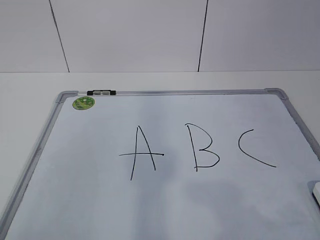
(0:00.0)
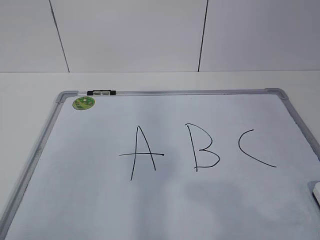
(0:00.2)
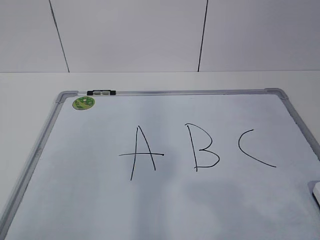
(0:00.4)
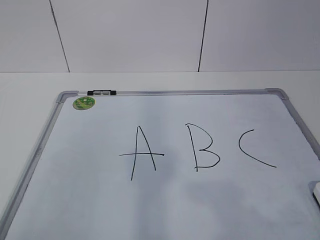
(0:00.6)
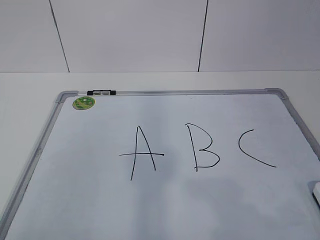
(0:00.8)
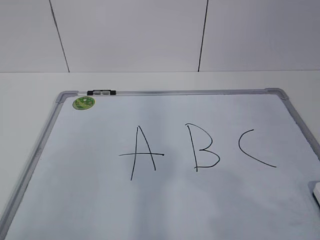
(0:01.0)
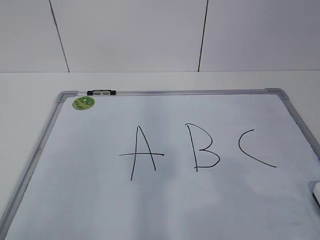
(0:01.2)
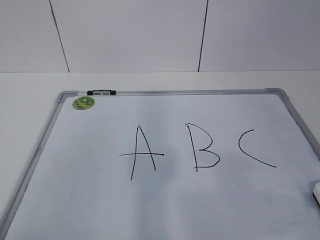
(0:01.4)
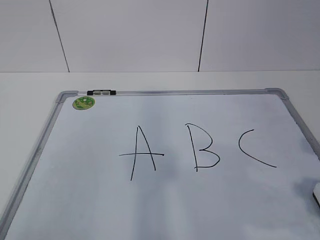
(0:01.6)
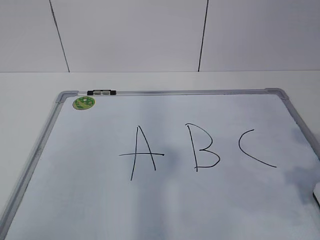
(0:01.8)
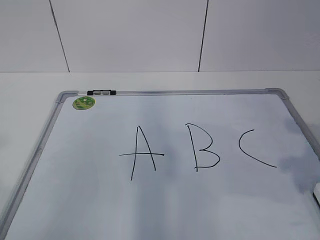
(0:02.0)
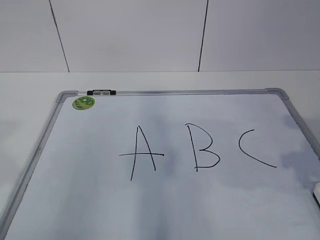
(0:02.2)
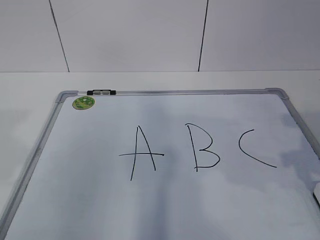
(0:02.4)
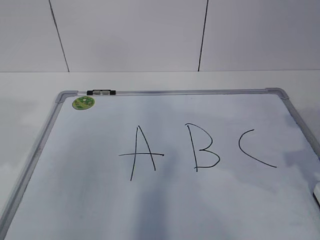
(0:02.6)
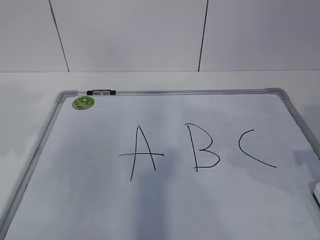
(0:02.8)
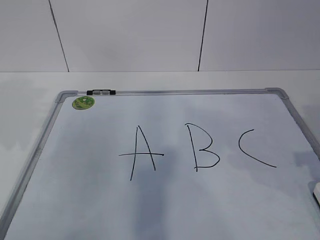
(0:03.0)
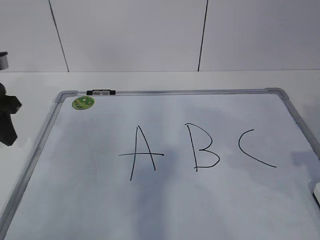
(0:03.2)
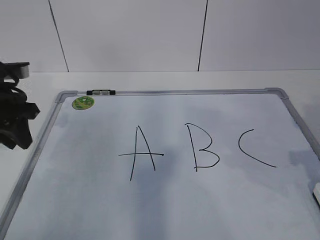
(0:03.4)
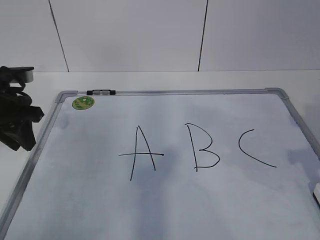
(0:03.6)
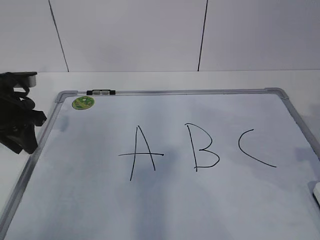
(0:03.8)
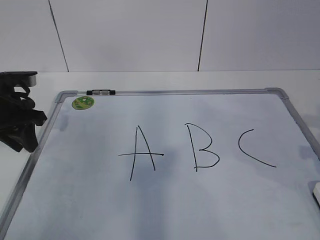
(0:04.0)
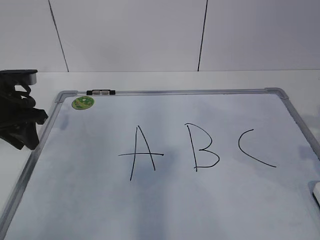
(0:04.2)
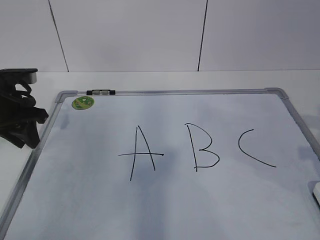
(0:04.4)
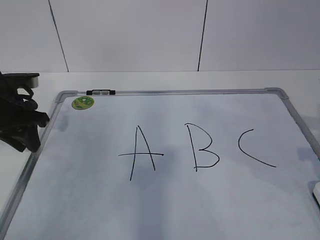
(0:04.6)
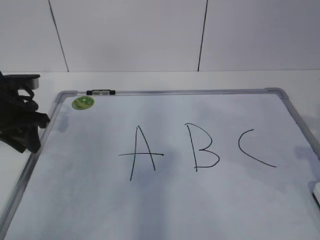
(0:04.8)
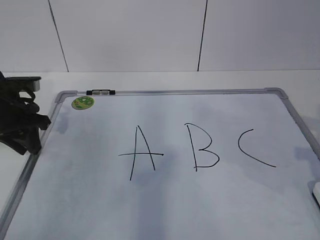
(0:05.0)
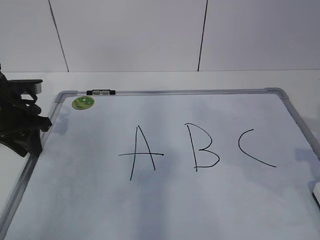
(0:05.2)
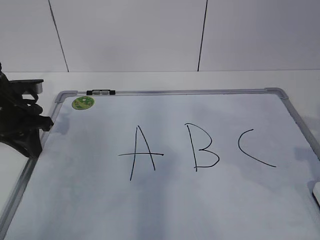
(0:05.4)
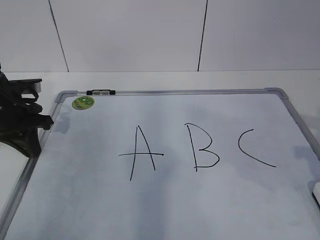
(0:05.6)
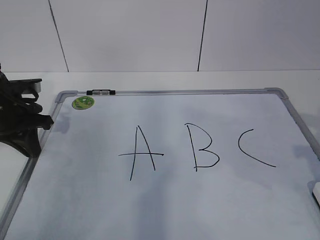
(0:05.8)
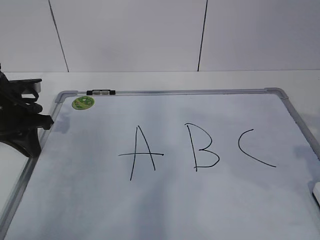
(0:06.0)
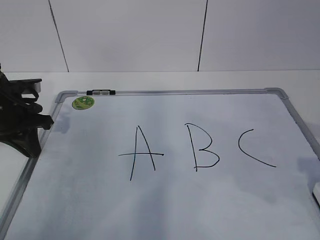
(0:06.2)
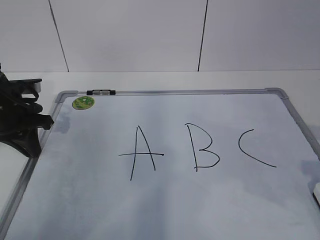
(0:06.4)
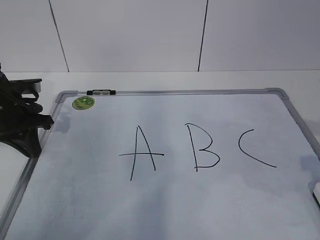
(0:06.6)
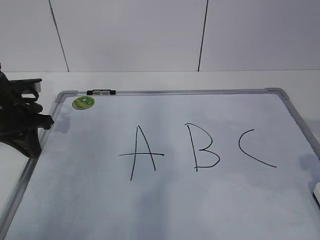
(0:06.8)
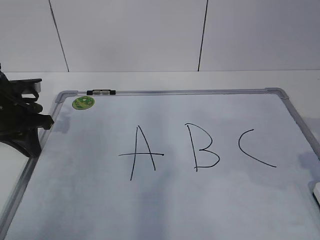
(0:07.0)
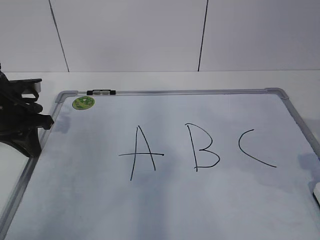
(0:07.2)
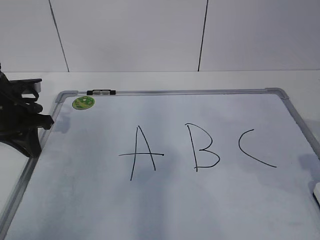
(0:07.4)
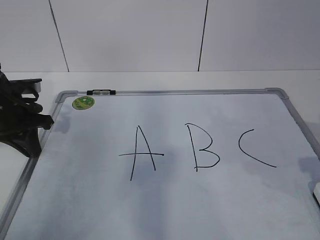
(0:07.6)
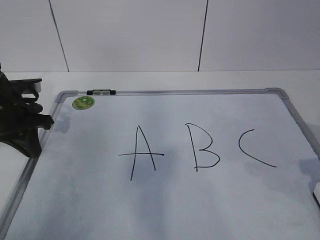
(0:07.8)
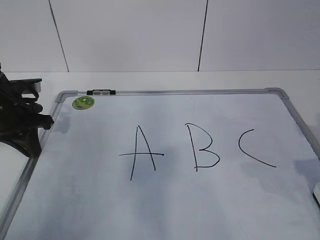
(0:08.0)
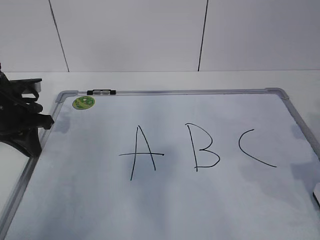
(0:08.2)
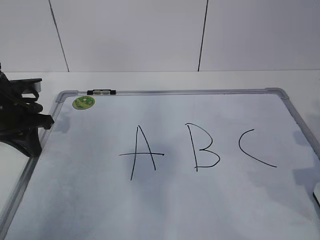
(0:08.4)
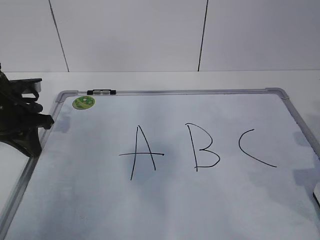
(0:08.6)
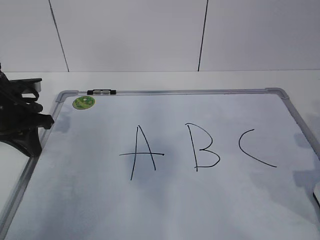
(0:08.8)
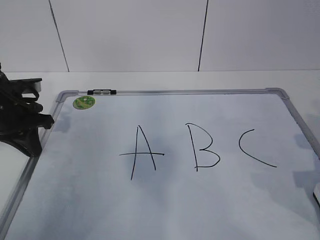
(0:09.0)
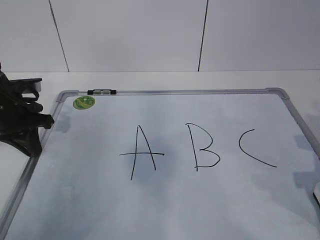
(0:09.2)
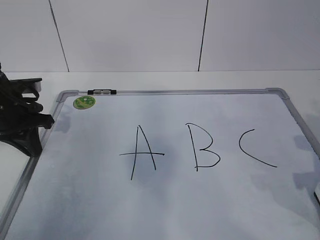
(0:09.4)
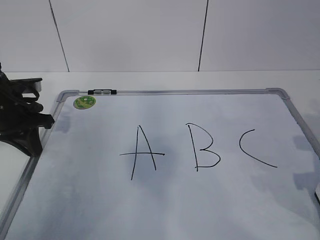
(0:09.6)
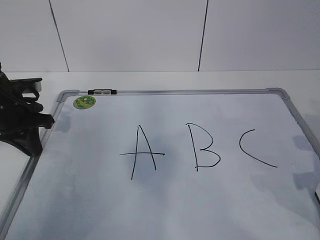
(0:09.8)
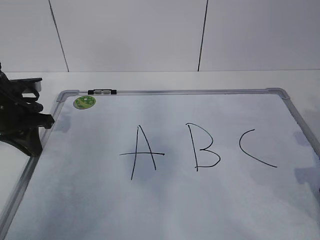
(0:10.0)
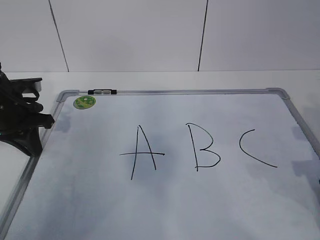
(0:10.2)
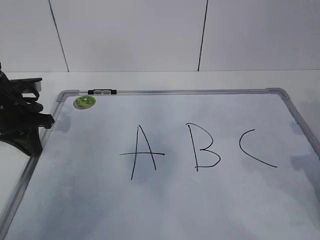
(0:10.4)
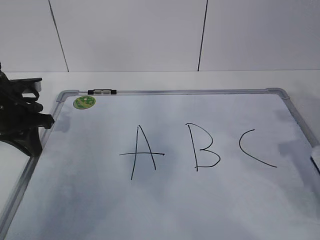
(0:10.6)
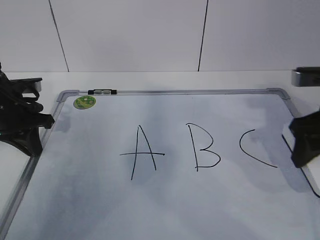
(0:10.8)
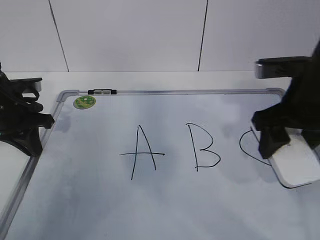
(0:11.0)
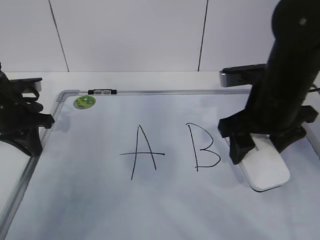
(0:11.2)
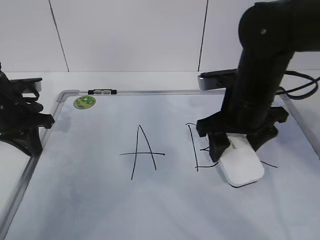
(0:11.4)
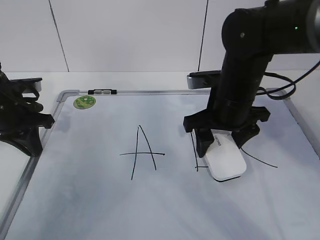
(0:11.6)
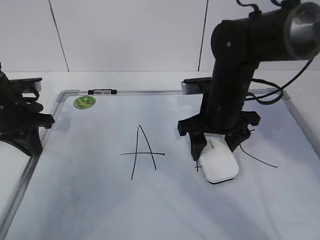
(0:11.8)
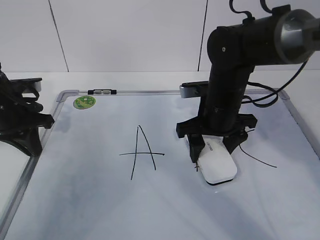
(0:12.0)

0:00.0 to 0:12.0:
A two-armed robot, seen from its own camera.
Task of the whole recording: pick up the eraser on the blackboard and erase the letter "B".
Step, 0:00.0 to 0:04.4: Hold the drawing board steady with your left hand.
0:01.6 to 0:03.0: The left gripper is displaced forward by about 30 cm; the right gripper shifts some 10 cm forward.
0:03.0 to 0:04.4: The left gripper is displaced downward and forward by some 10 cm.
0:04.4 to 0:06.0: The left gripper closes.
0:10.4 to 0:12.0: The right gripper heads to the left and forward, covering roughly 25 cm.

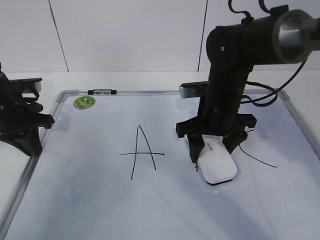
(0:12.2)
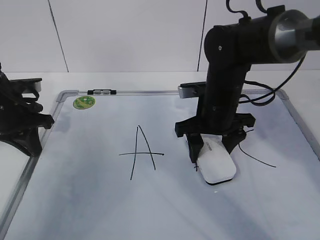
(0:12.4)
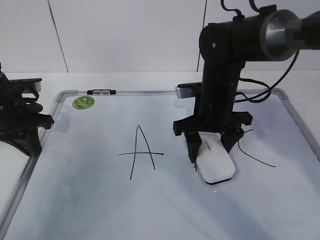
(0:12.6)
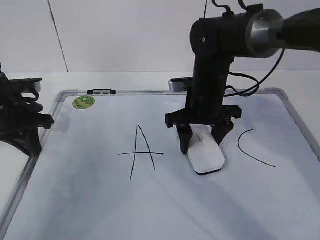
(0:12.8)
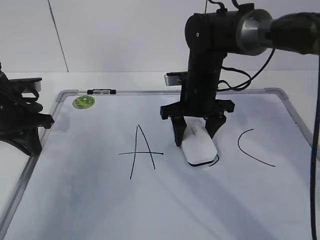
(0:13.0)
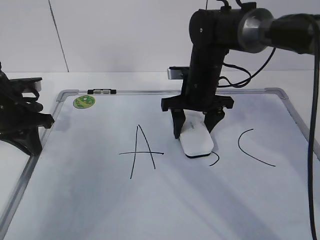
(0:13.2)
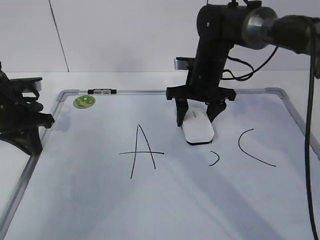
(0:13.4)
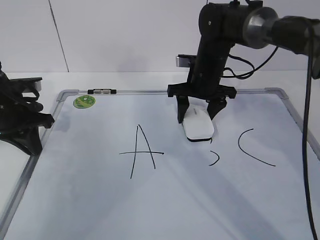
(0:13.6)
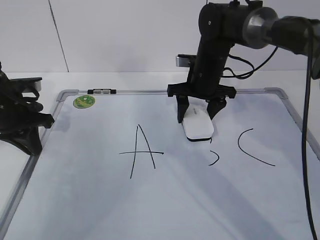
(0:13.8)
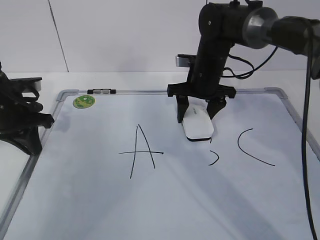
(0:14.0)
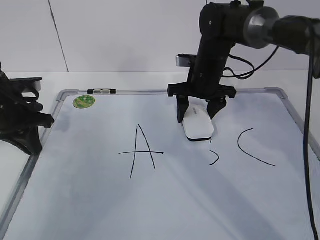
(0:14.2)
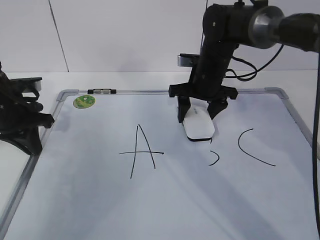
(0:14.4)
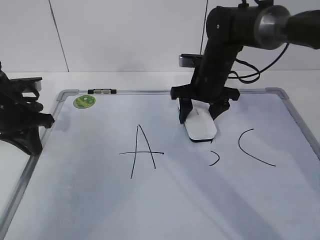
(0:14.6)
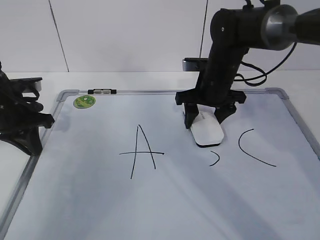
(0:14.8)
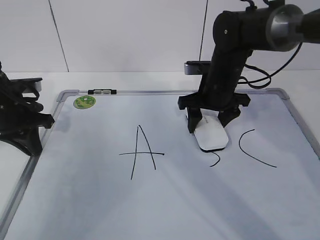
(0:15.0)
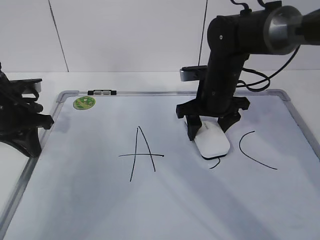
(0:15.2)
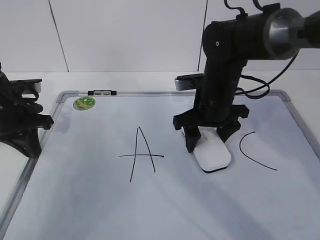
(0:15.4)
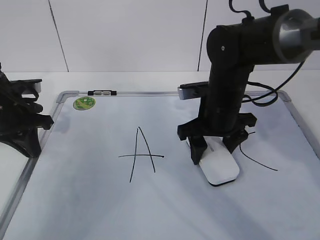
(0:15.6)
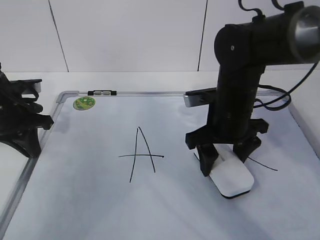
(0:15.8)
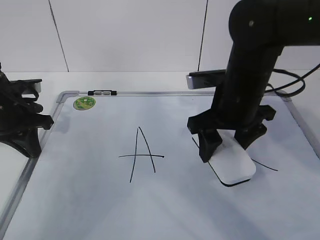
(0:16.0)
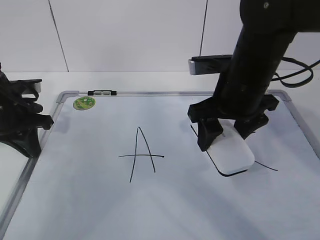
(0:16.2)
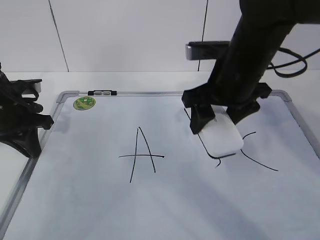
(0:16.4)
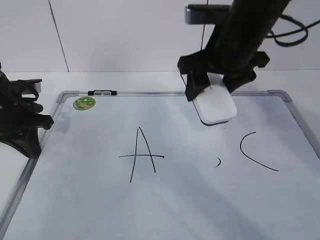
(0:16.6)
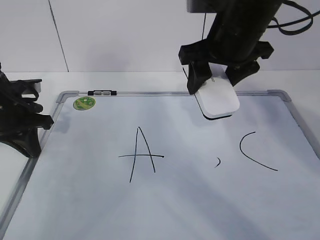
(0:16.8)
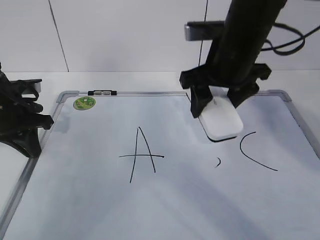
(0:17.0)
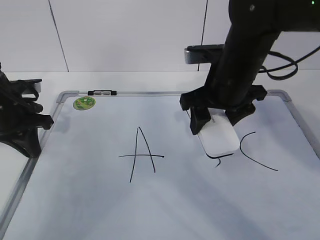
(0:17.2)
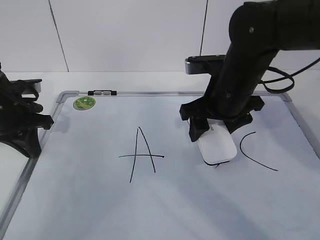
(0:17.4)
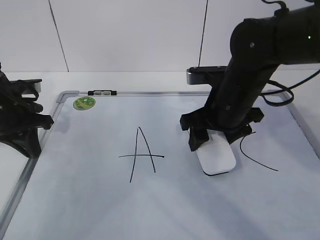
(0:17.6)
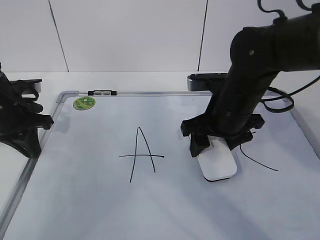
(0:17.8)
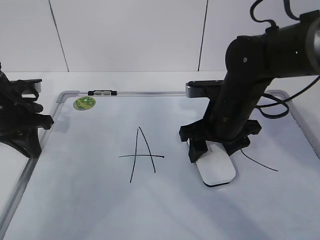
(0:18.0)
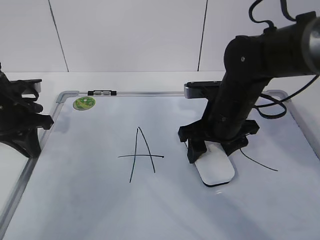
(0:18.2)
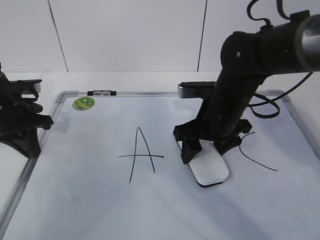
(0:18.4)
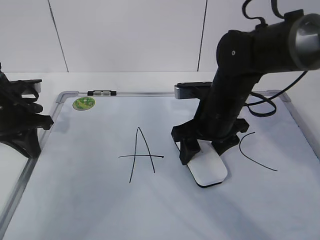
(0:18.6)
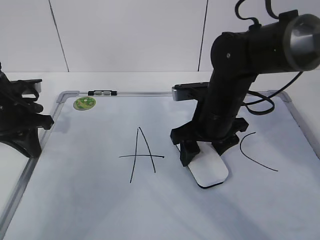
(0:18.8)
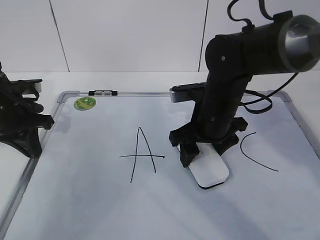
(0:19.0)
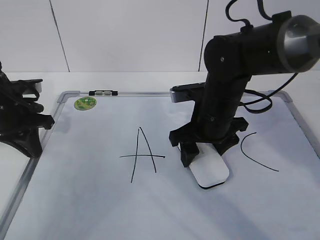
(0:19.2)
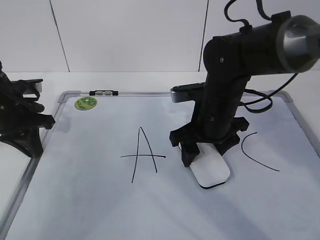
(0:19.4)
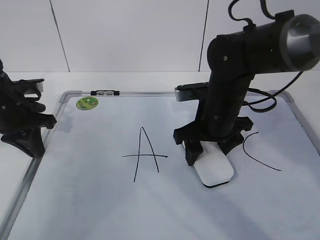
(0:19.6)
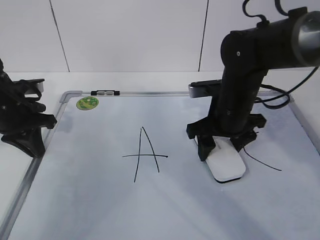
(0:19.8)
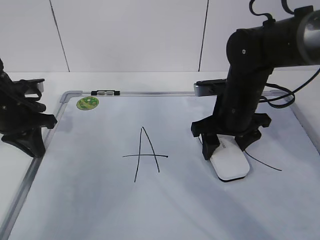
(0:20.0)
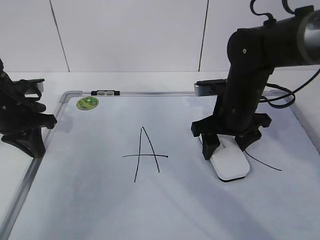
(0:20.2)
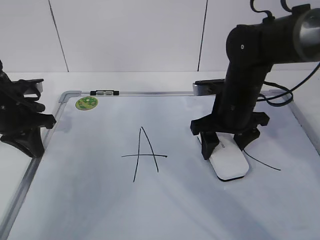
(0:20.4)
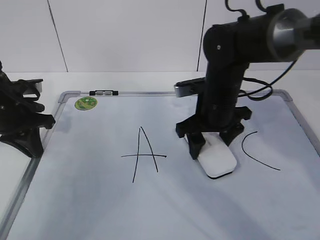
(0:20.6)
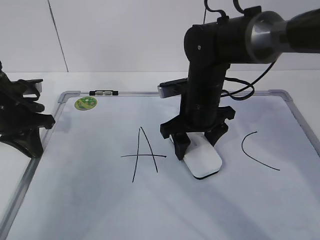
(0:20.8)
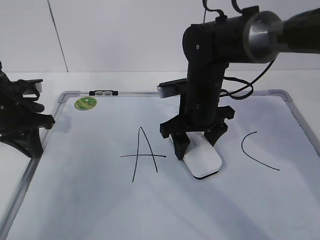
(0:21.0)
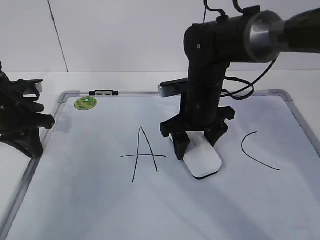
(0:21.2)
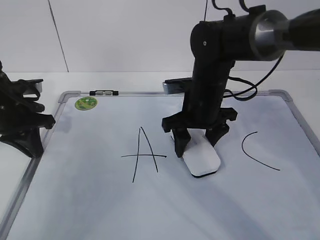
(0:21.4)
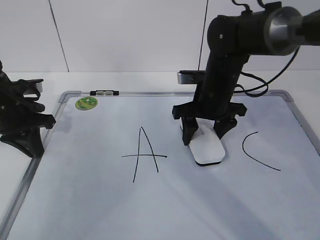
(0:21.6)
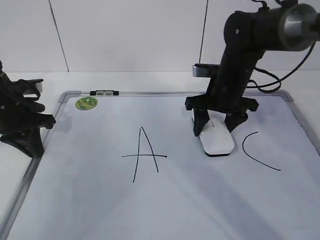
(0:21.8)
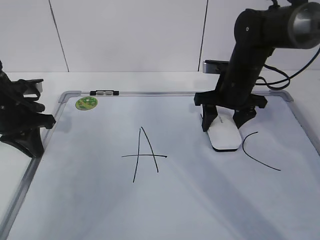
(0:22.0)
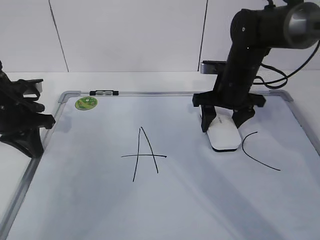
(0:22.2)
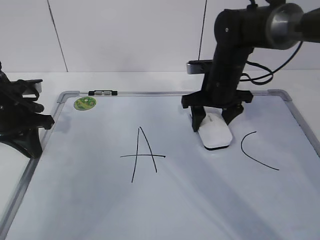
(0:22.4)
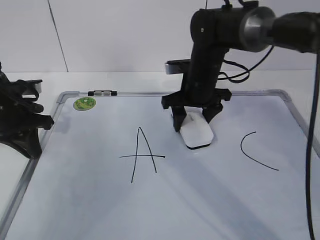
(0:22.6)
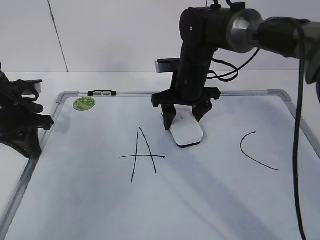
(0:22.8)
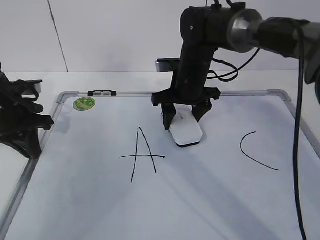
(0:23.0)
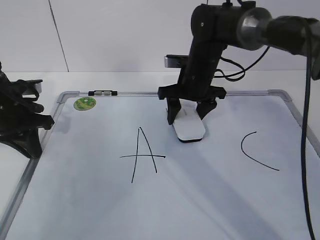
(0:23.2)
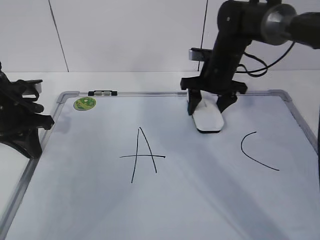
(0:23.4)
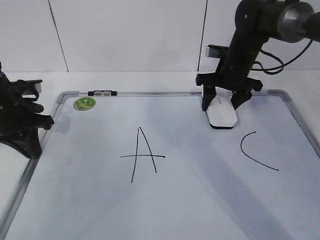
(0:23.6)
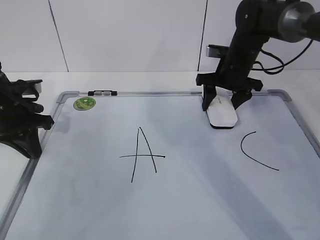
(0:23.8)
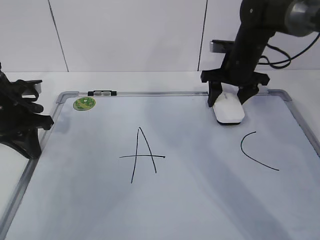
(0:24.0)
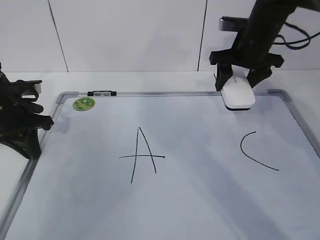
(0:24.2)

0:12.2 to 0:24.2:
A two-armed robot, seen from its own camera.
Task of the whole recording: pick up the eraser on the blackboard and erase the letter "B".
Step, 0:12.2 to 0:19.8: Erase the letter B with your right hand.
Step, 0:20.0 to 0:24.0: Put down the eraser with your right hand.
0:12.2 to 0:13.8: The right gripper shifts some 10 cm forward.
0:13.8 to 0:15.2: The right gripper heads backward, covering some 5 cm.
0:15.2 to 0:16.6: The right gripper heads upward and backward, covering approximately 15 cm.
0:16.6 to 0:18.2: The right gripper goes roughly 10 cm downward.
0:18.2 to 0:19.8: The grippers move only a little.
0:19.8 to 0:21.2: The right gripper moves to the left, some 5 cm.
0:21.2 to 0:22.6: The right gripper shifts roughly 5 cm forward, and goes to the right and returns, approximately 10 cm each way.
0:22.6 to 0:24.2: The right gripper travels to the right and upward by about 10 cm.
